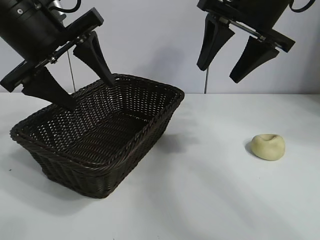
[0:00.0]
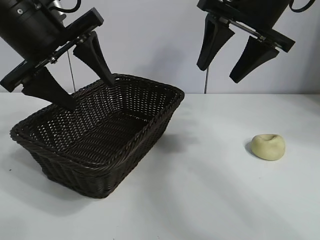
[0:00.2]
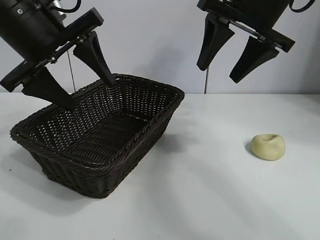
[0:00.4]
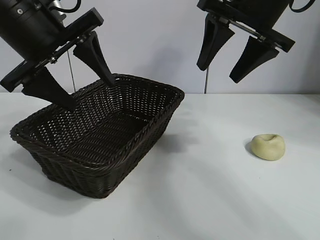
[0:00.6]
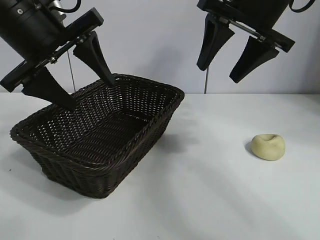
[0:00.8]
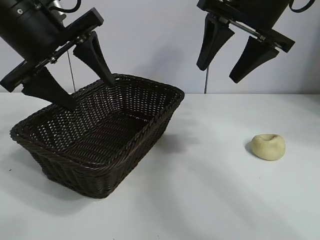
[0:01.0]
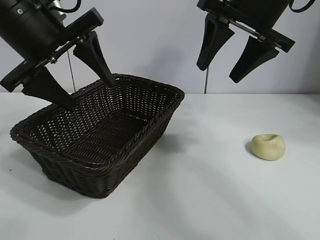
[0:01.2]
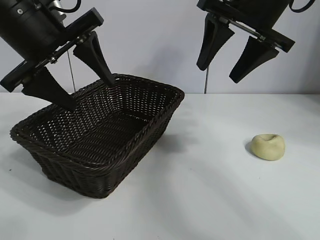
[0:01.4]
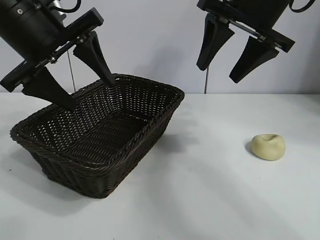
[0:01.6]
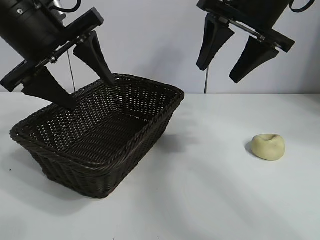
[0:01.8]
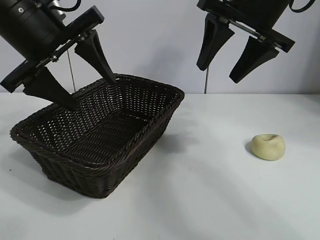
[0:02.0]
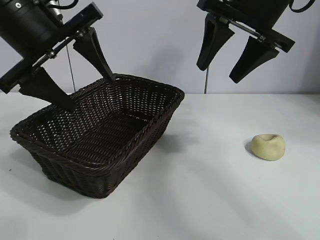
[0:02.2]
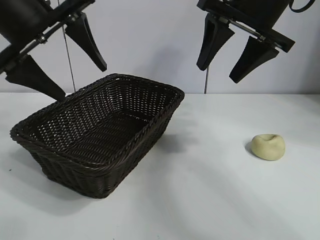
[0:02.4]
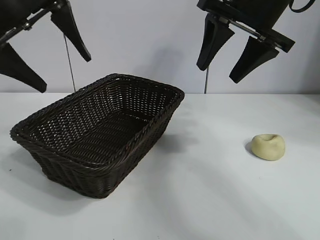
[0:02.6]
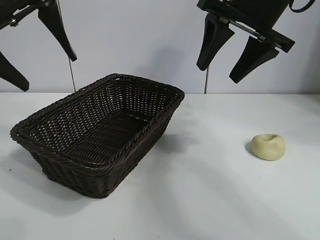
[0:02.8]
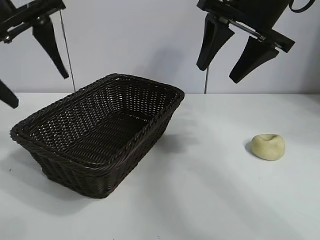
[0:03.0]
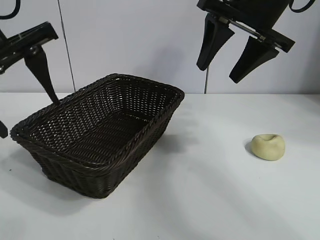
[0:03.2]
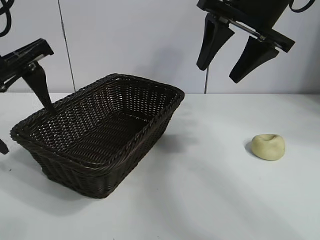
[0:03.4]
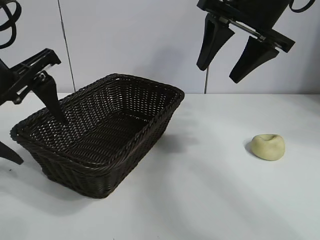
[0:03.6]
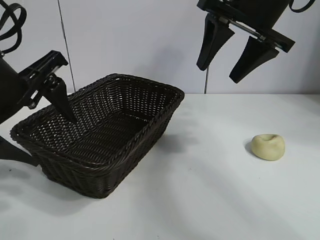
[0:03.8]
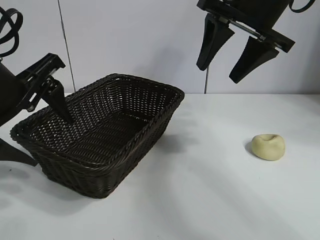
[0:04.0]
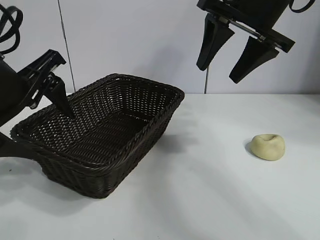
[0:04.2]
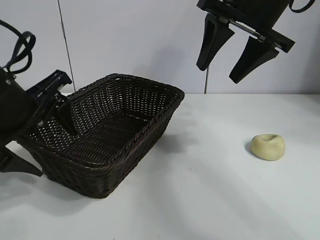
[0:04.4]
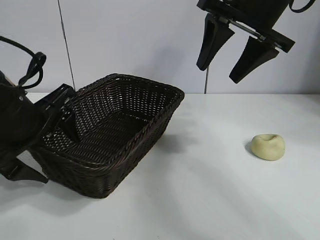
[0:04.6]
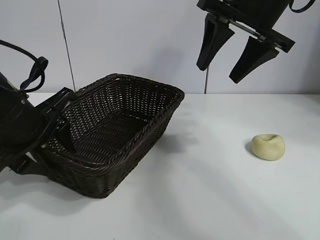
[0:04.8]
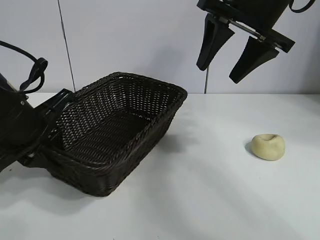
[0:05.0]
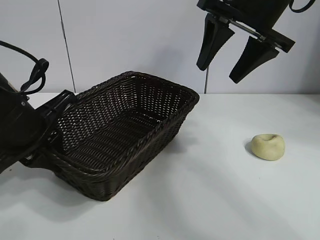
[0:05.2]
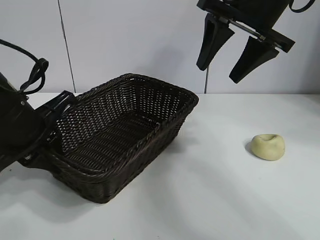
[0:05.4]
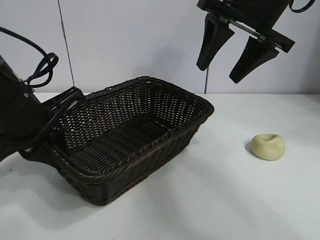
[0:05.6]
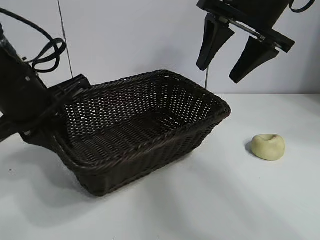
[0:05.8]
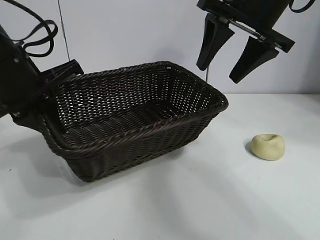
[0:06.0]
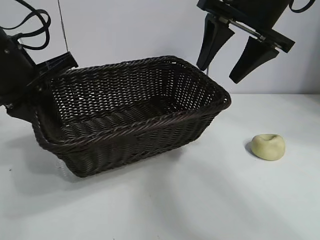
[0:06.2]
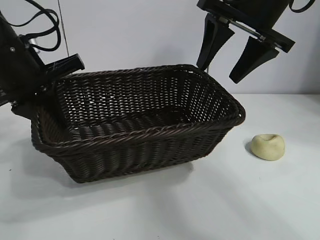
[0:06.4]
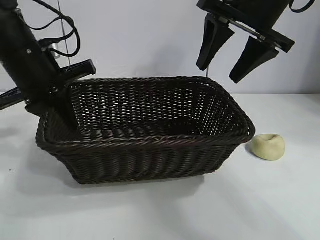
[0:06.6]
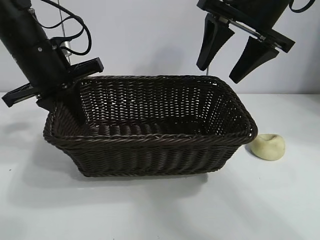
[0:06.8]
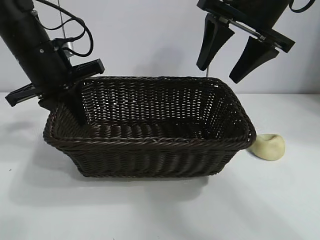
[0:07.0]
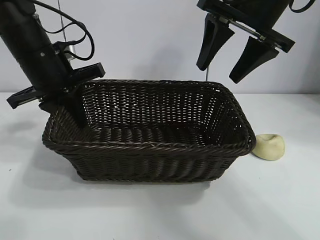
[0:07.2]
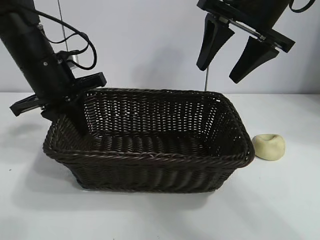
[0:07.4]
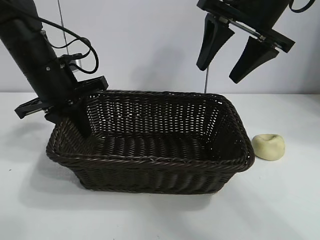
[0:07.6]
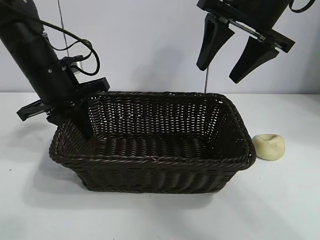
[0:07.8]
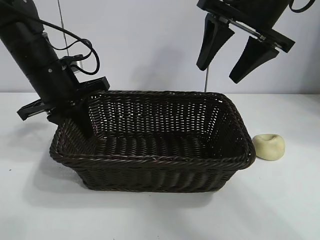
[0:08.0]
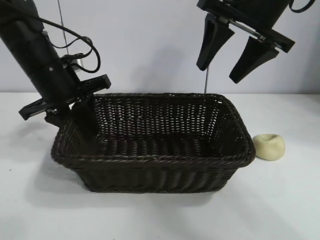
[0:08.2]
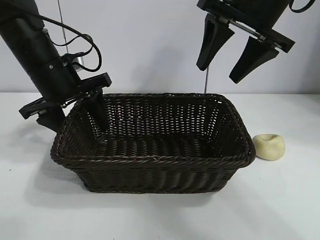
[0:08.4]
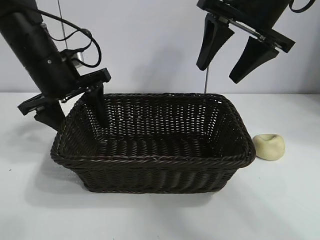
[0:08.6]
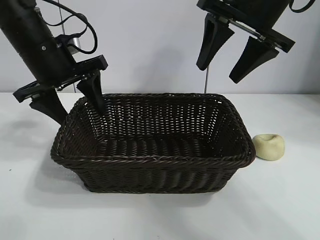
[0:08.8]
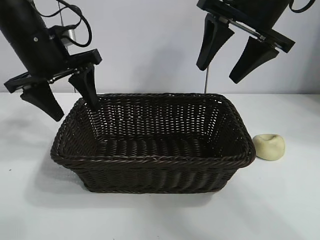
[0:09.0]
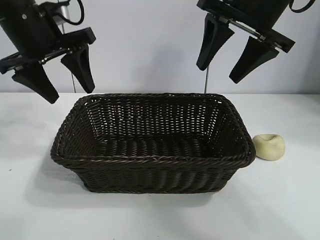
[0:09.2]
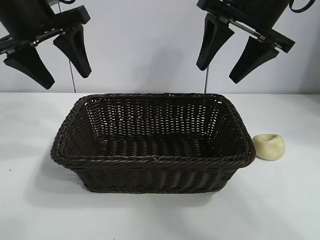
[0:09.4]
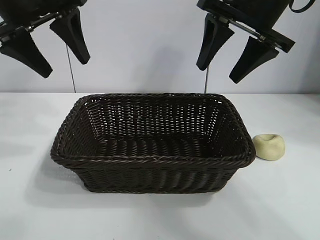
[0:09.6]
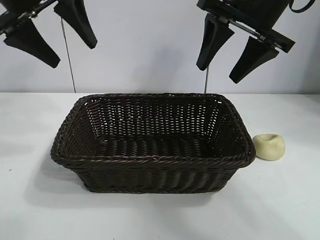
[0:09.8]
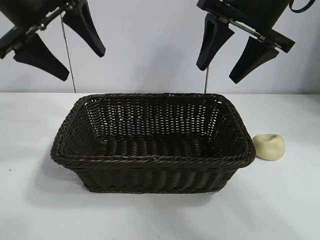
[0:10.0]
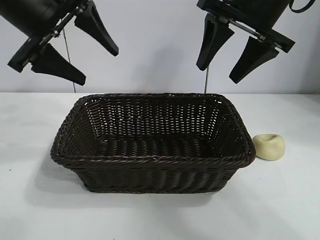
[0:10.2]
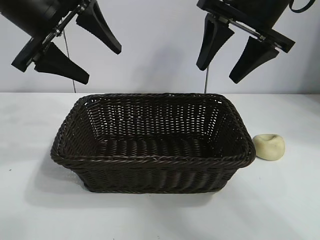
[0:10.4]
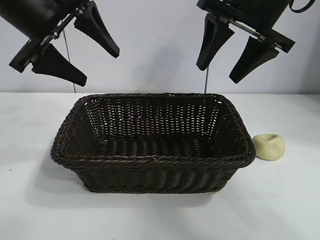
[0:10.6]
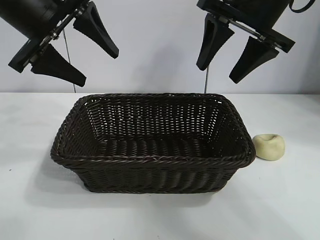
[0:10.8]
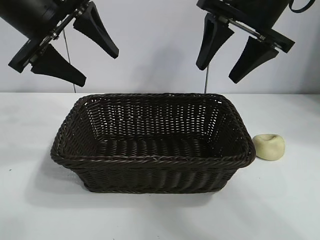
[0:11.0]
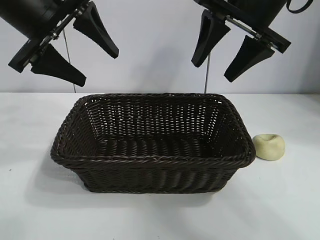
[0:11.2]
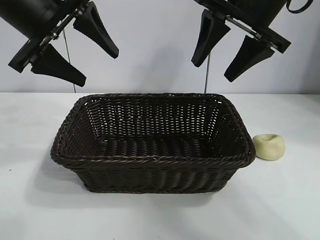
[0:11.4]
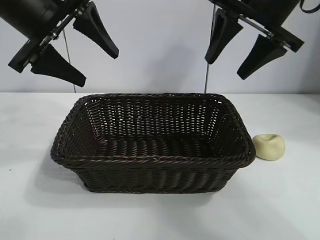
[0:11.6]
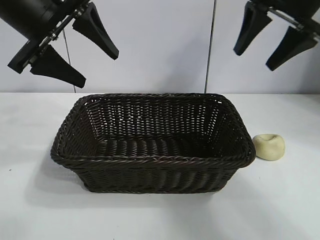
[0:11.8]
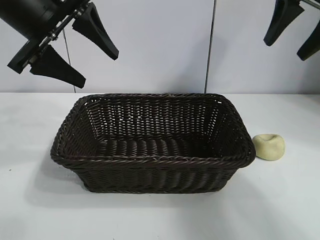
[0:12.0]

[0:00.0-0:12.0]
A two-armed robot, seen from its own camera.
Task of the whole recording: pick up the egg yolk pastry and put it into the basket.
Step, 0:03.6 to 0:05.2: Grasp the basket with left gripper.
Step, 0:05.4 to 0:08.2: Place the basket in the center of view with left gripper.

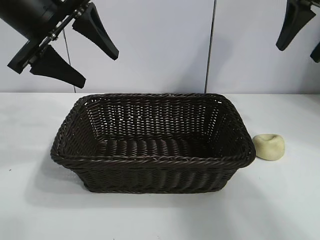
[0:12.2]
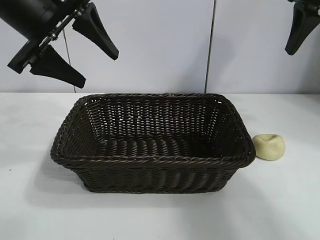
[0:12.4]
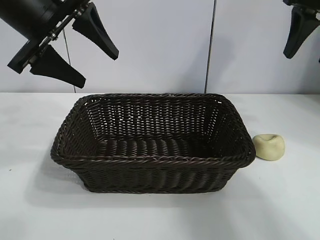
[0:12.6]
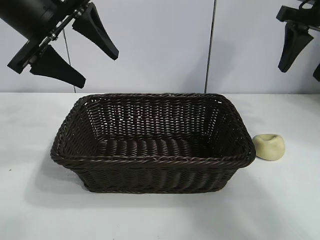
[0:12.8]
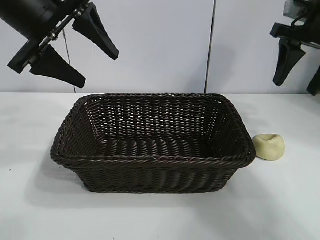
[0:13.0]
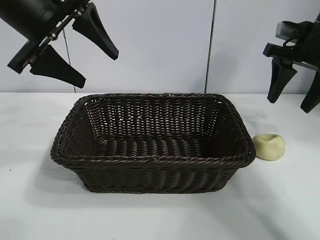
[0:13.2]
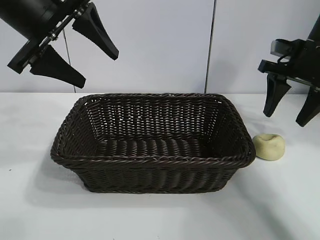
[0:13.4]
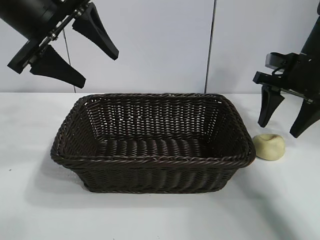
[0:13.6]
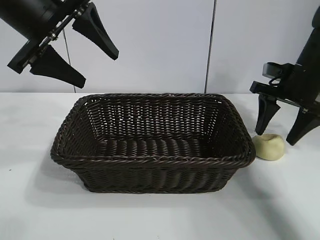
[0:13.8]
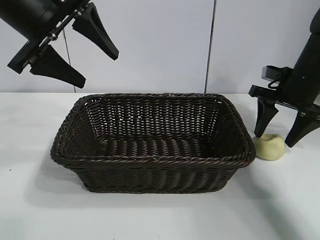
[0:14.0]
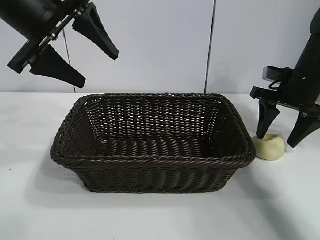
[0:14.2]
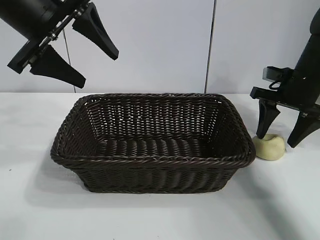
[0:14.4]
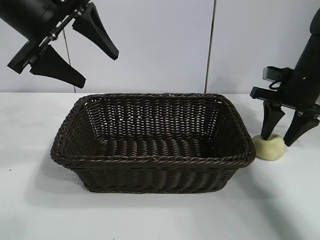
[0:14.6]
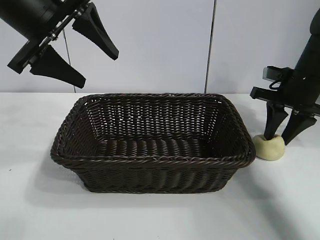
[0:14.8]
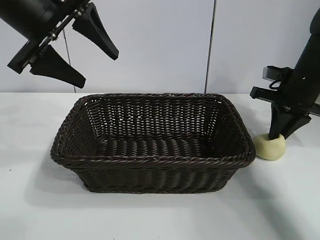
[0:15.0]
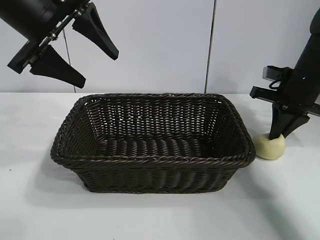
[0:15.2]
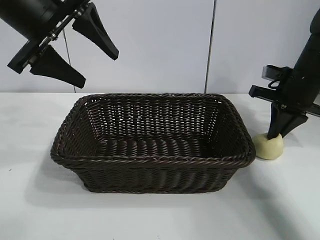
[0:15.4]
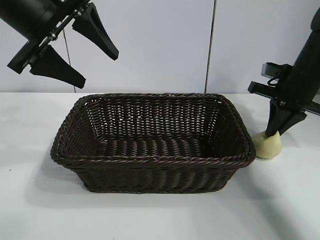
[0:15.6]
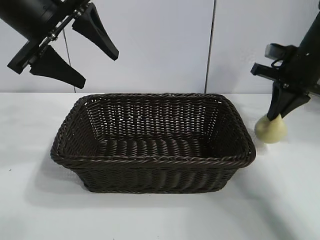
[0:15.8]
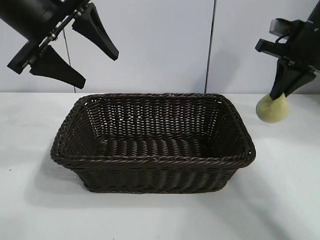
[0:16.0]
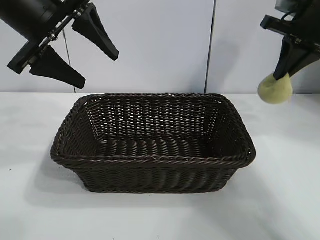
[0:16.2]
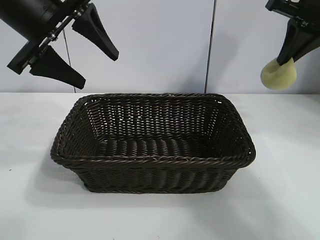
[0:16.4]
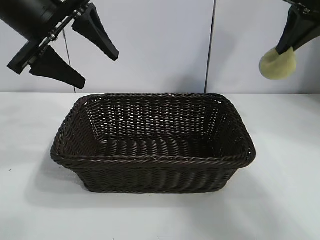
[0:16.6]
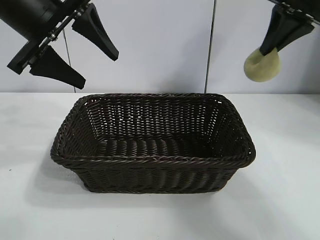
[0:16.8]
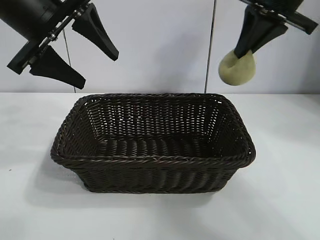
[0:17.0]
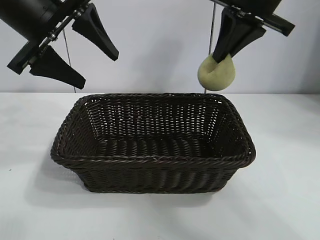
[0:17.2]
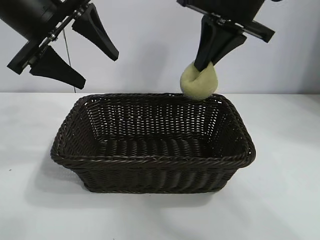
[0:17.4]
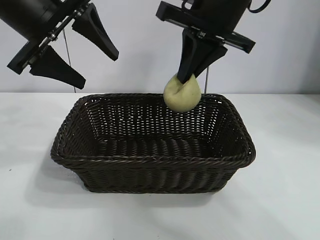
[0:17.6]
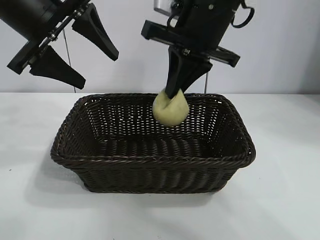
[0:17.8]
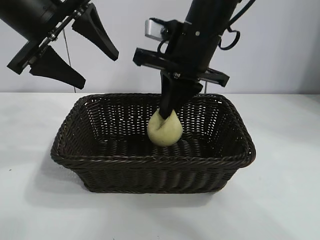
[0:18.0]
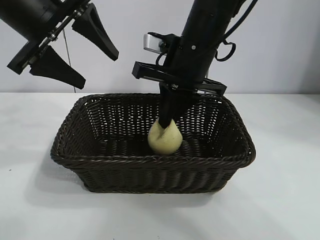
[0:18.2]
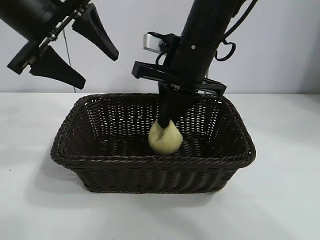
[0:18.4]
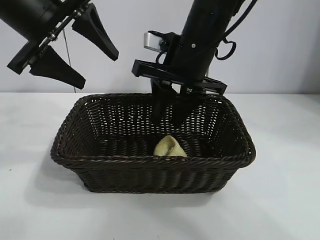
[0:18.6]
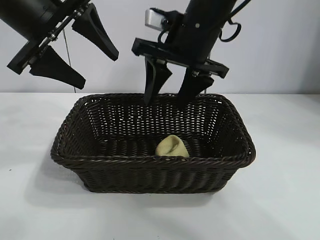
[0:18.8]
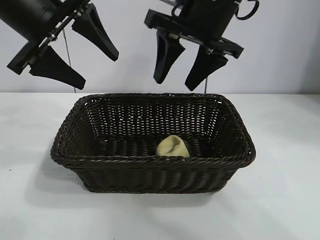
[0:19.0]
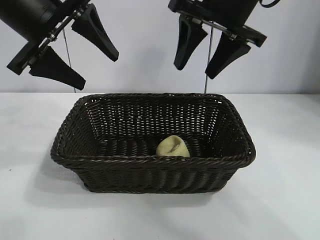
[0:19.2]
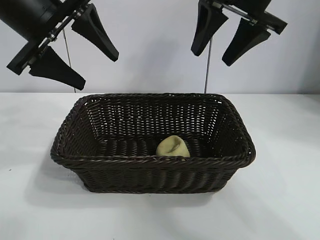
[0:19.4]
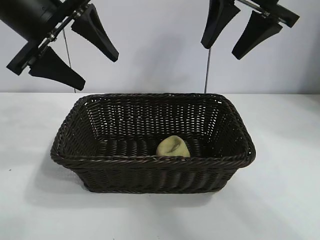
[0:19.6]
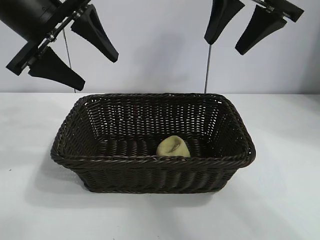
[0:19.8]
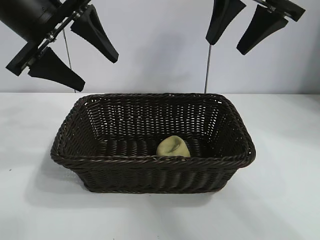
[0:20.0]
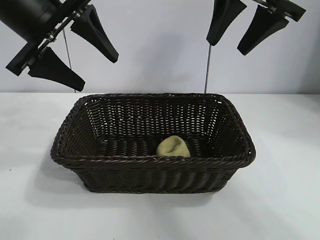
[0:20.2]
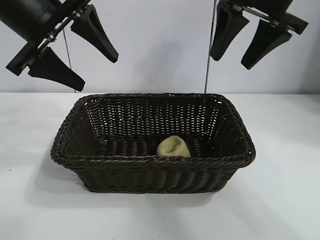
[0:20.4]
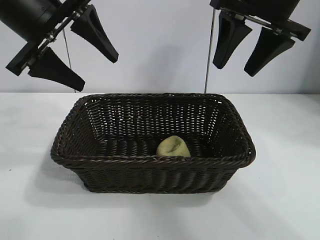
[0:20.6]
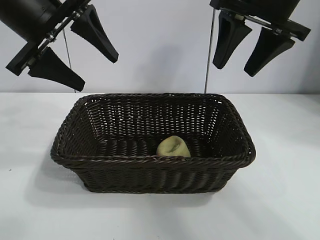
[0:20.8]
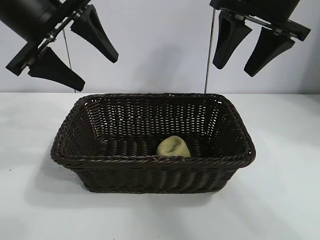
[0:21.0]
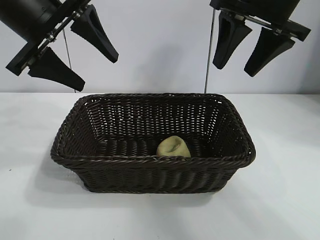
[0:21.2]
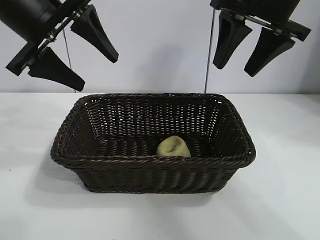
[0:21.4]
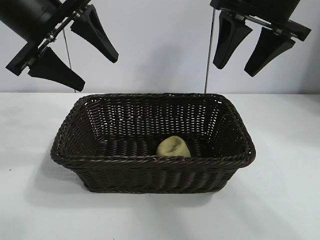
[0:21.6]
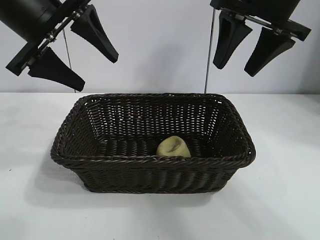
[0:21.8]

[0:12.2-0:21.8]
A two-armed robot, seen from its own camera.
Task of the whole recording: pick up the egg yolk pastry and put it into the basket.
Step, 0:12.2 to 0:15.0: Grasp egg yolk pastry with right gripper.
Step, 0:15.2 to 0:18.4: Place the egg yolk pastry in the basket with right gripper.
